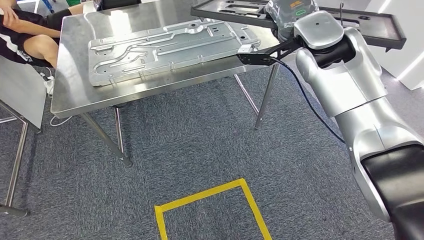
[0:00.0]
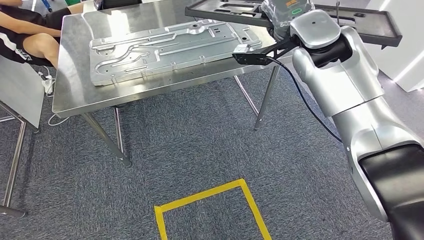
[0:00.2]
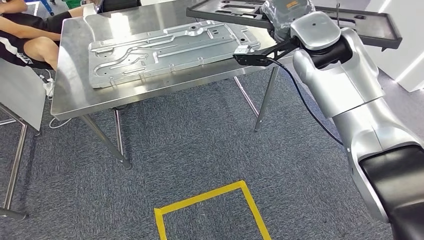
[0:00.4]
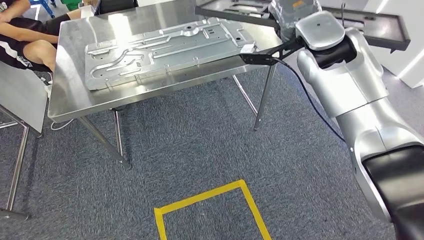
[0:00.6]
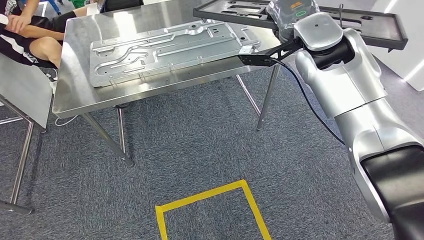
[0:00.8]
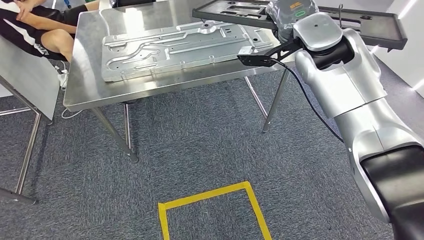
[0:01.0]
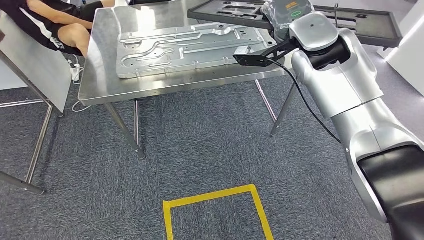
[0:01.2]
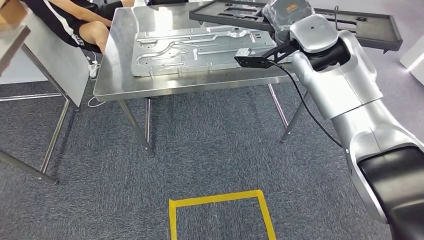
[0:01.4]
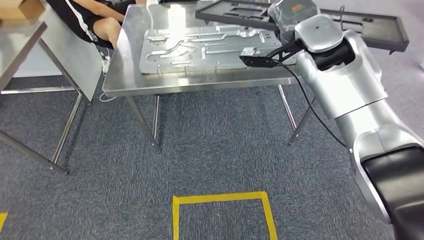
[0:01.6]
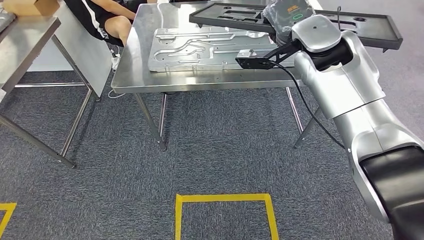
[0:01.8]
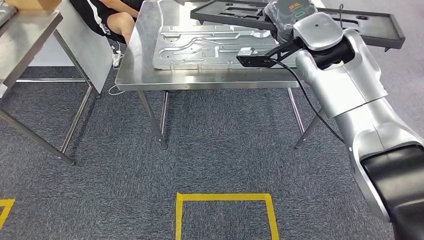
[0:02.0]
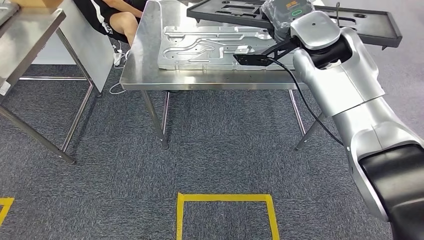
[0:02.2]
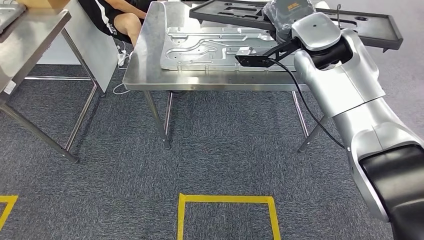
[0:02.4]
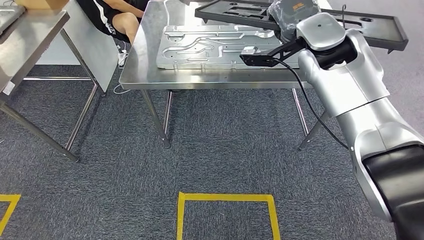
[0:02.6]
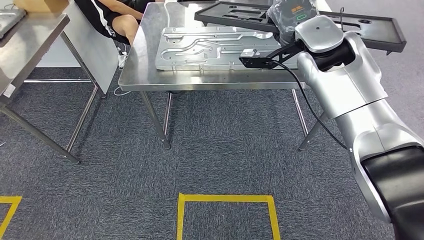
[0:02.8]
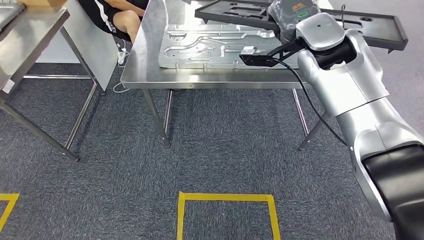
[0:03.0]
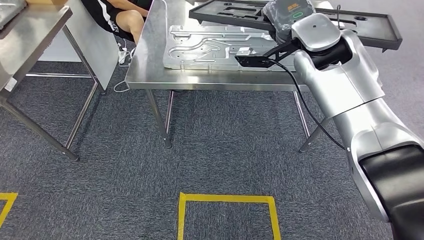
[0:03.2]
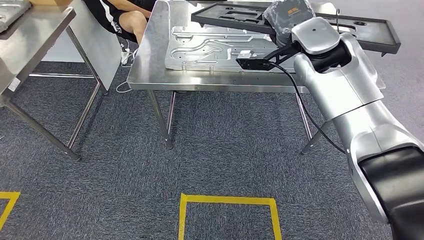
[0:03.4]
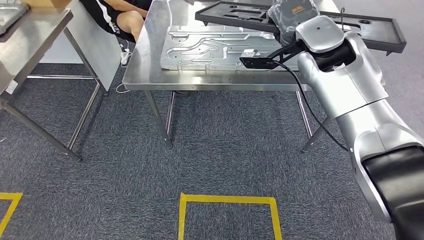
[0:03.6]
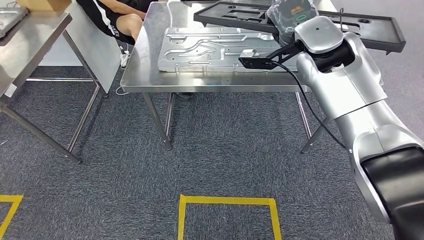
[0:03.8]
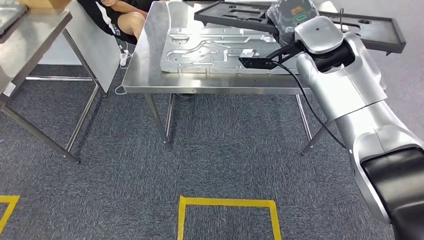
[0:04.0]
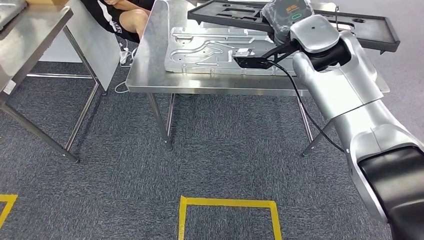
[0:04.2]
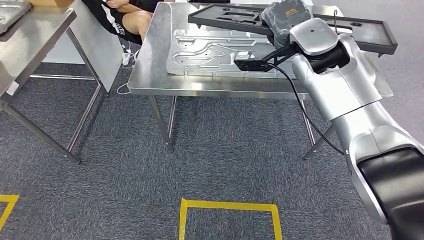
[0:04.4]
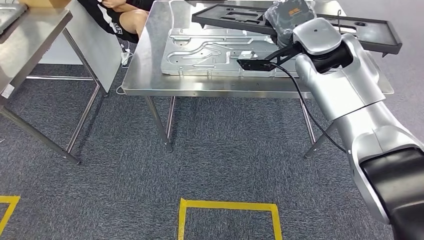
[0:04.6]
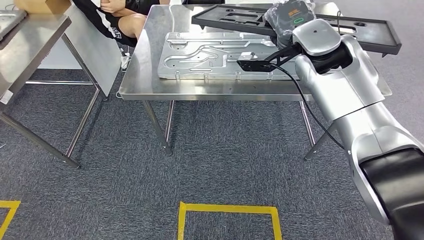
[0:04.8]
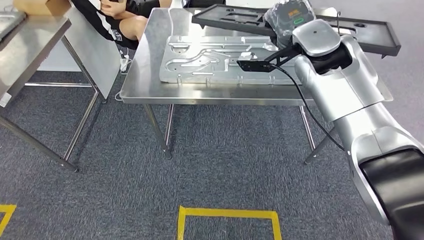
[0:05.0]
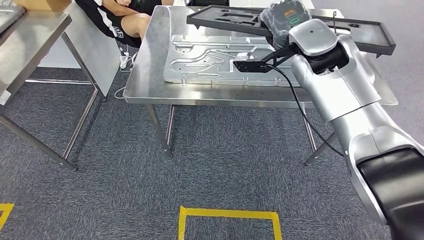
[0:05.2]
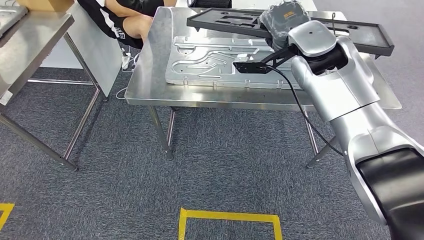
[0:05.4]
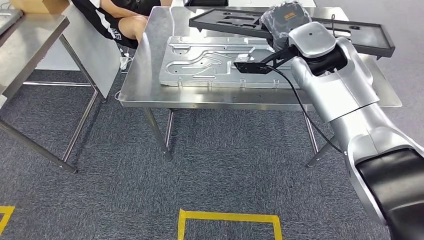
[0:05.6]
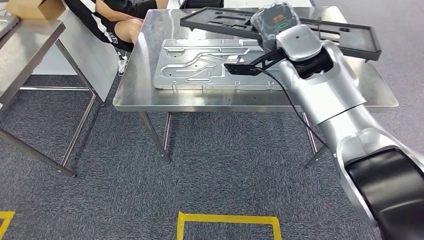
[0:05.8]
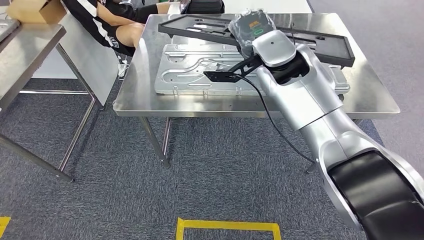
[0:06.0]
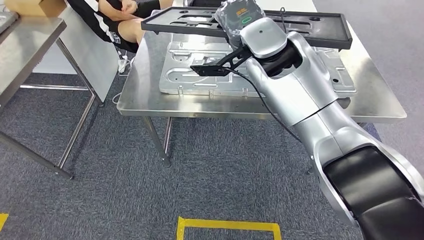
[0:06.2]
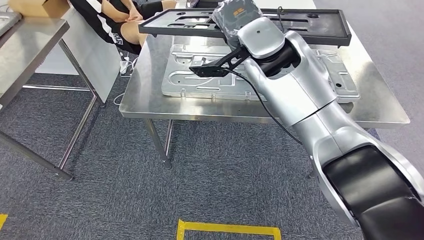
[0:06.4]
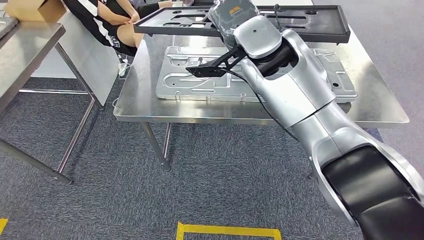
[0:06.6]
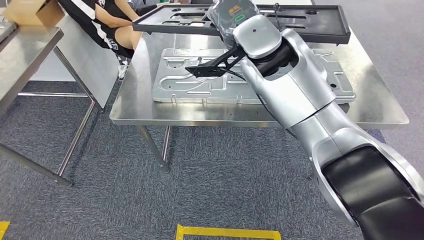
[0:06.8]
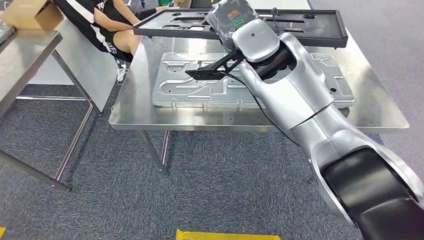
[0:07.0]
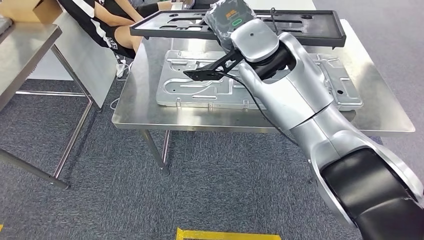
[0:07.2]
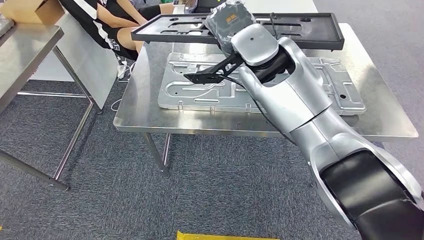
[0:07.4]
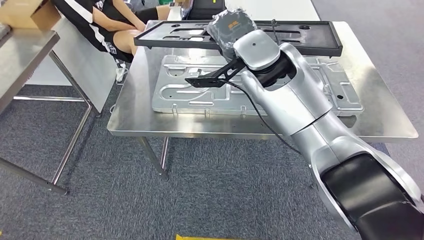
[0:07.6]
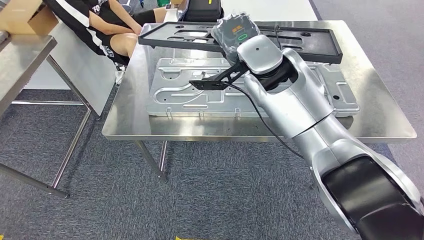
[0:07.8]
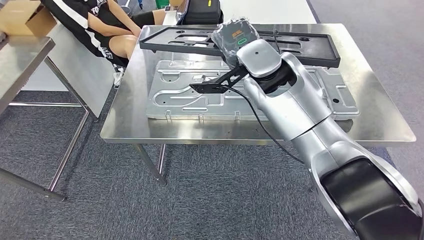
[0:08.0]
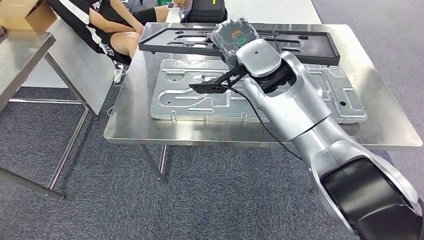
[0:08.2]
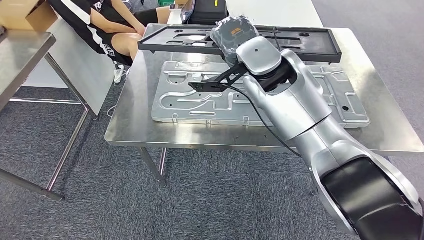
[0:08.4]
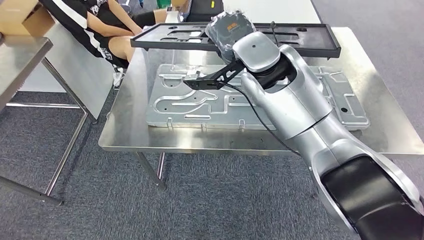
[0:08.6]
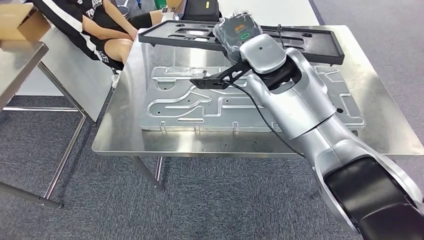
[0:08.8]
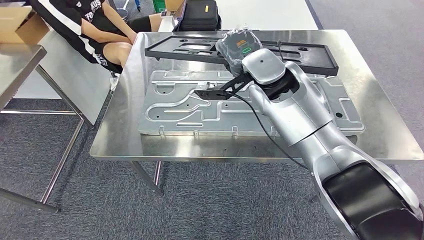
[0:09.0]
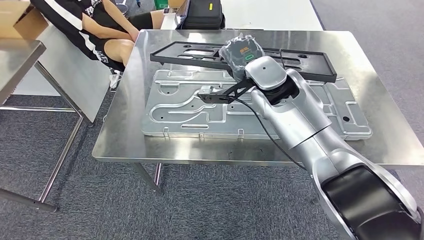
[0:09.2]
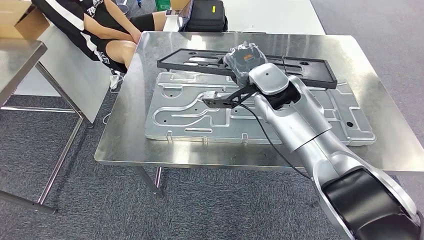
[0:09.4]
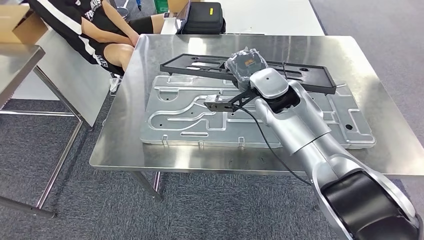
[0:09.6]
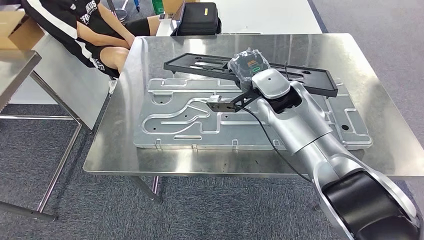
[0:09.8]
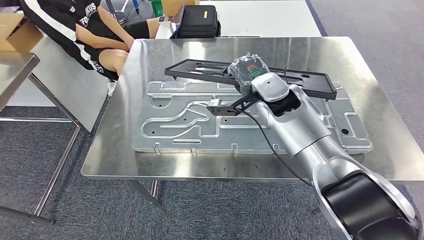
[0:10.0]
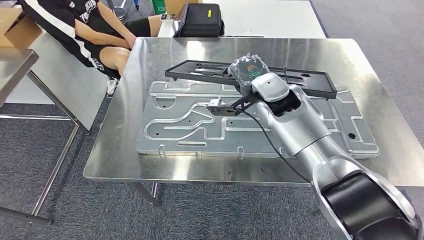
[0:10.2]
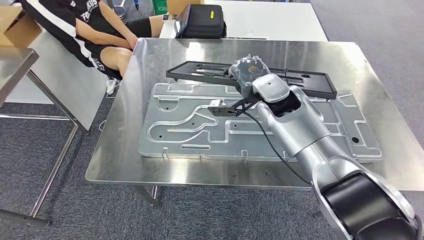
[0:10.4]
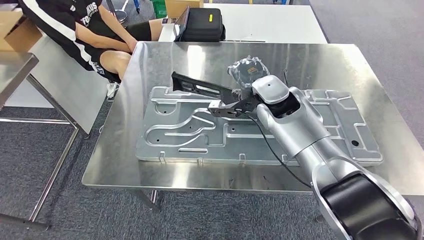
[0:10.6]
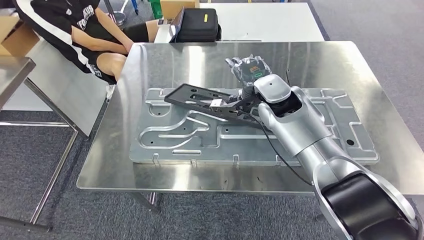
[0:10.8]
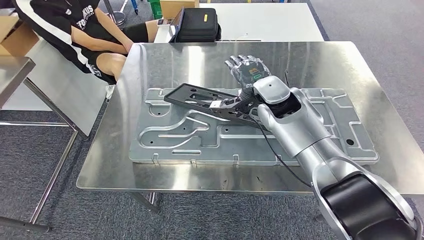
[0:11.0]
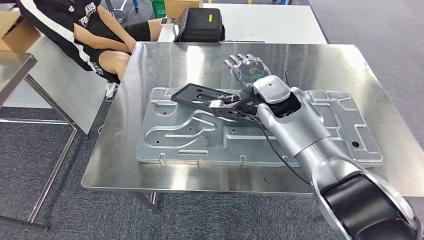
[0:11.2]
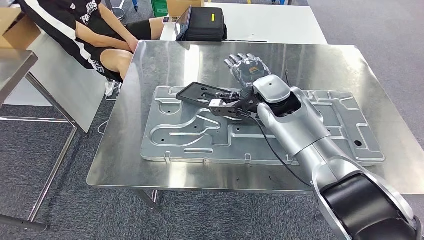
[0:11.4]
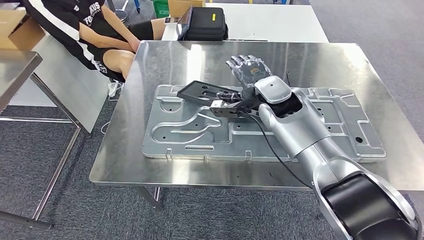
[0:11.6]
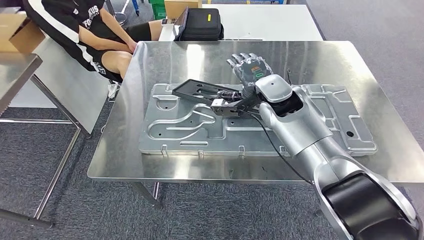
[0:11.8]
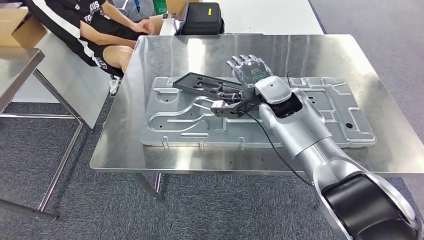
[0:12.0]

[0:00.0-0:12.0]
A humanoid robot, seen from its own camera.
Step, 0:00.0 to 0:08.6: Move the large material to the workbench.

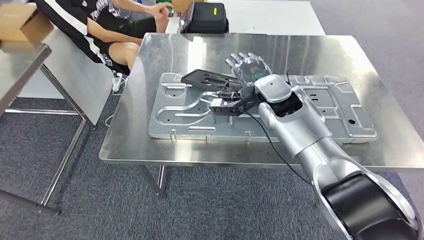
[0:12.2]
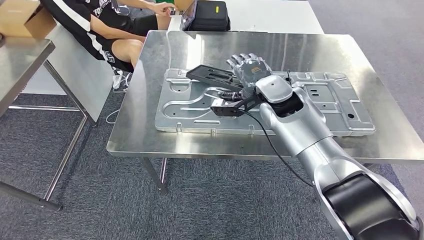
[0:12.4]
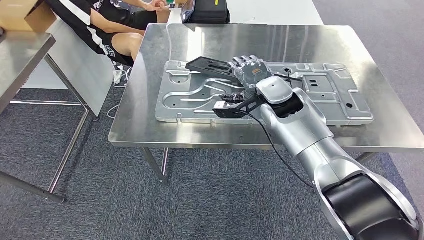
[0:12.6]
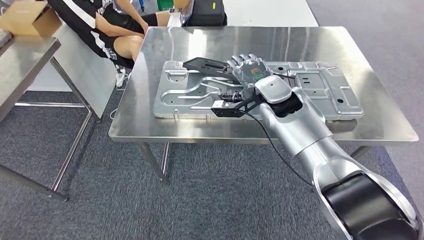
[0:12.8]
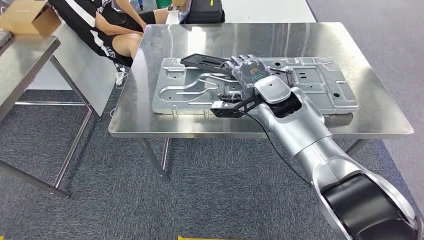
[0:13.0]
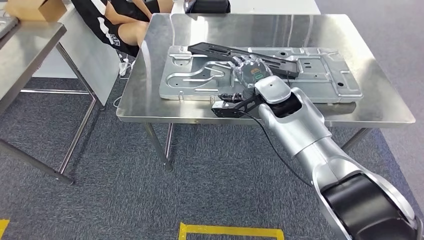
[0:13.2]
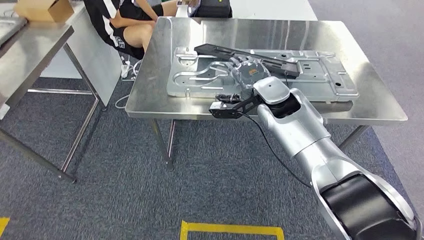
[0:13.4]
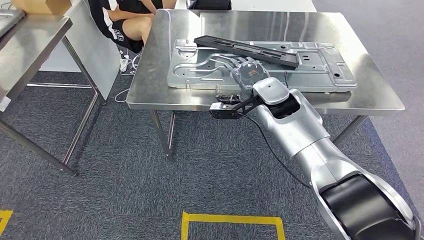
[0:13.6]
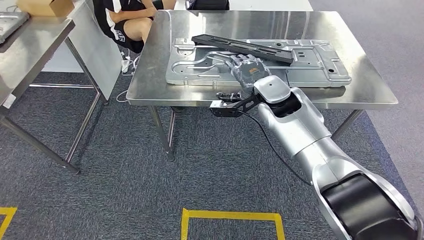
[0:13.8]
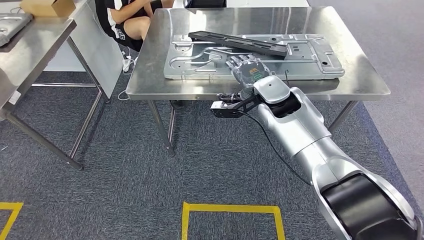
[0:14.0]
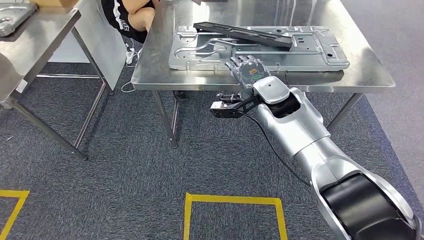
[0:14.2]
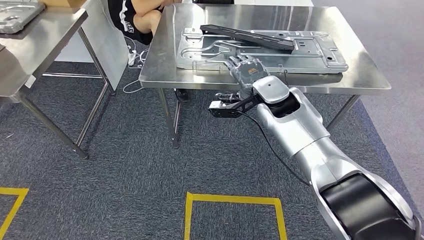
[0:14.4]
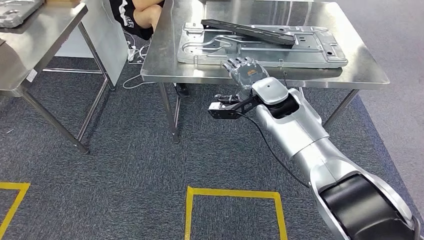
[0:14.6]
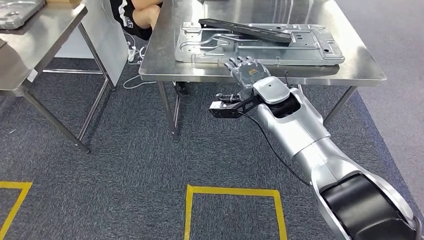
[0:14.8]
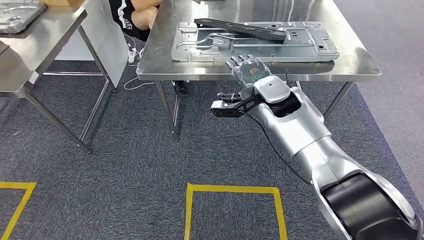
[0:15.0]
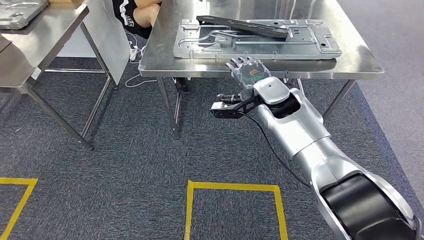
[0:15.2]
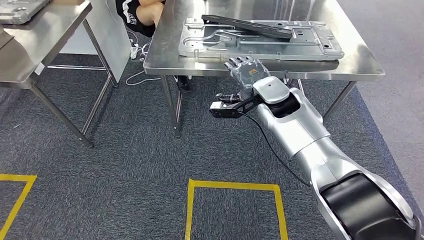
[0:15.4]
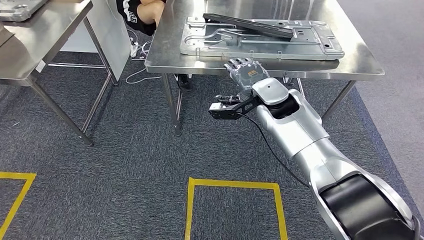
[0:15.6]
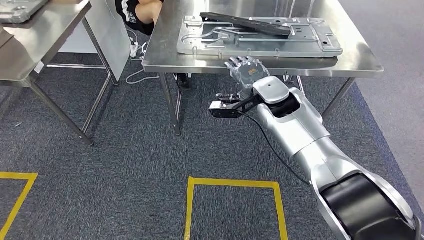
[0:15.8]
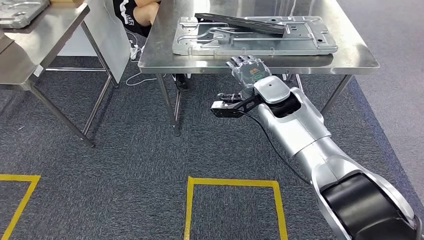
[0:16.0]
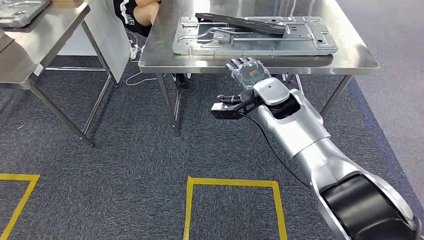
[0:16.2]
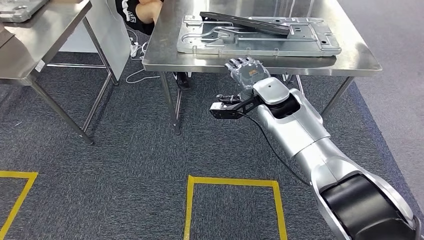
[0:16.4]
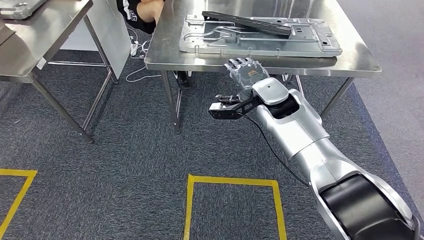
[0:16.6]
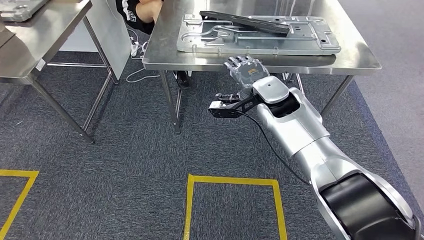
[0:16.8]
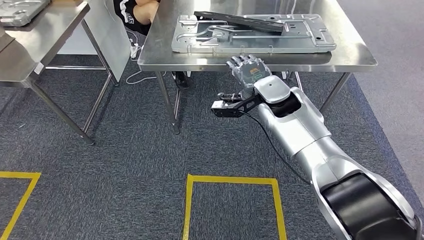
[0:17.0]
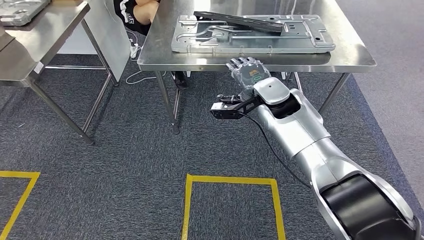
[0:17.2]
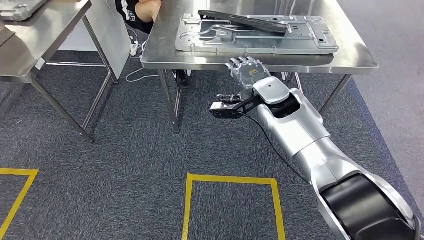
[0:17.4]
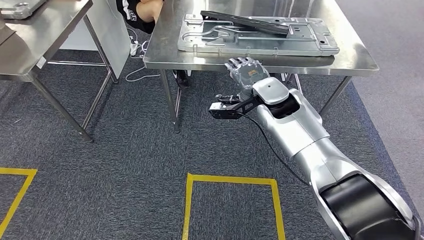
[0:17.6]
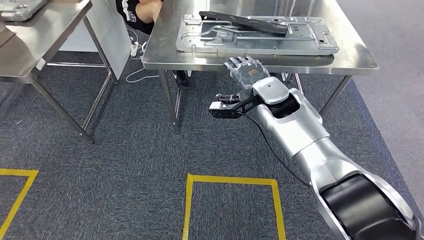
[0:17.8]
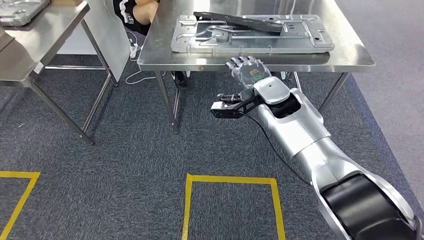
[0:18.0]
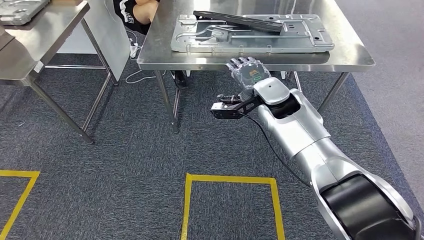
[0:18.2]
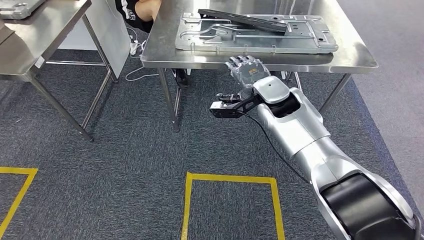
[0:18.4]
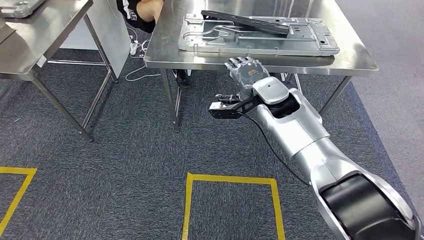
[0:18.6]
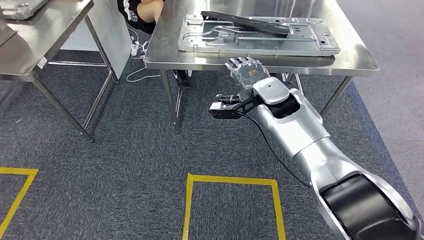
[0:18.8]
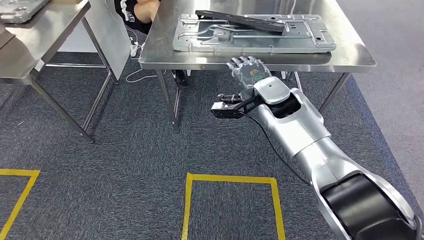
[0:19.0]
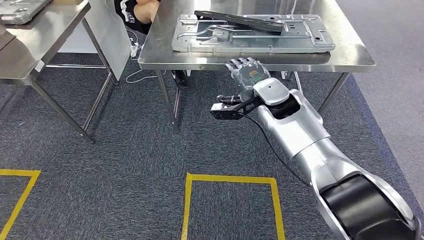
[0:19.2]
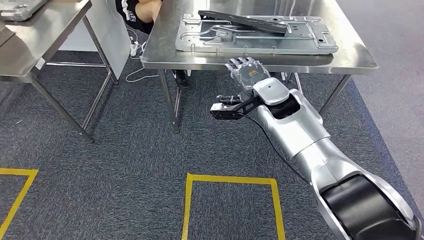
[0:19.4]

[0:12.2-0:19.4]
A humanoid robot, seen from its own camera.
Step, 0:12.2 to 0:14.4: Insert the large material into the corresponding slot on the workbench.
0:16.6 to 0:19.4: The two hands keep their place.
